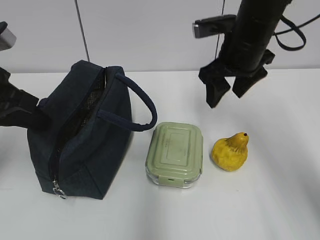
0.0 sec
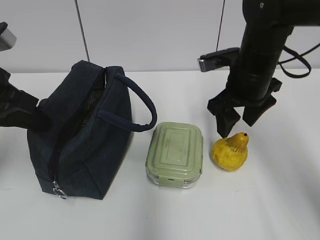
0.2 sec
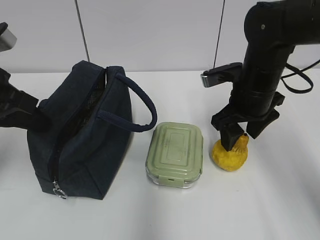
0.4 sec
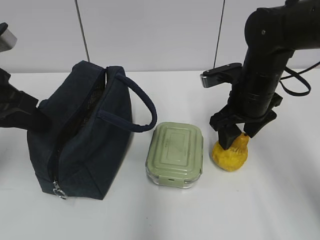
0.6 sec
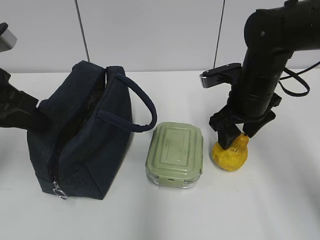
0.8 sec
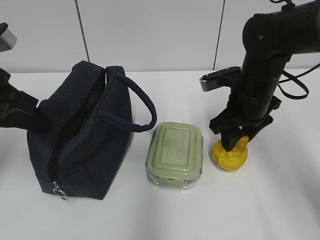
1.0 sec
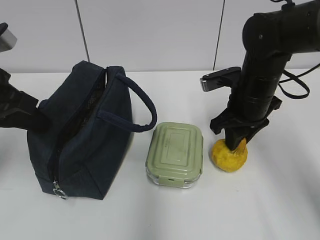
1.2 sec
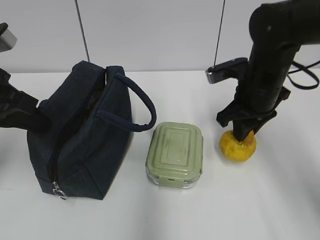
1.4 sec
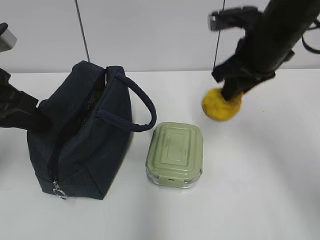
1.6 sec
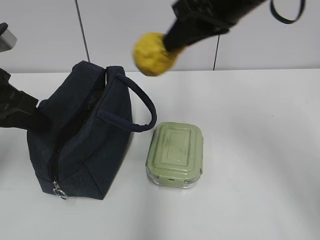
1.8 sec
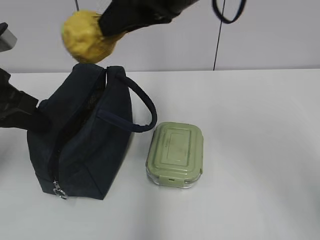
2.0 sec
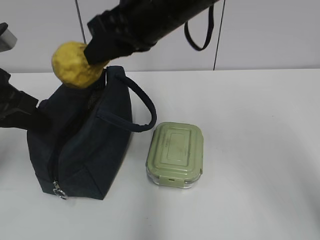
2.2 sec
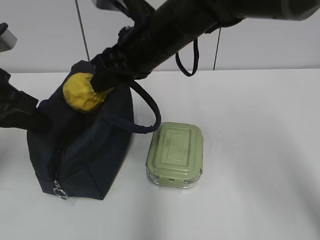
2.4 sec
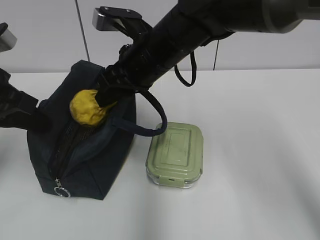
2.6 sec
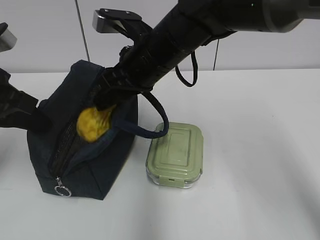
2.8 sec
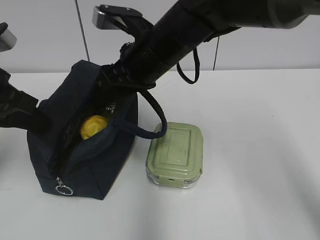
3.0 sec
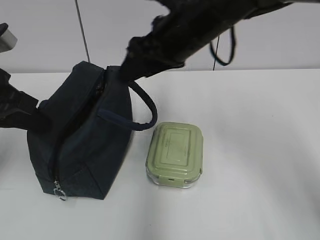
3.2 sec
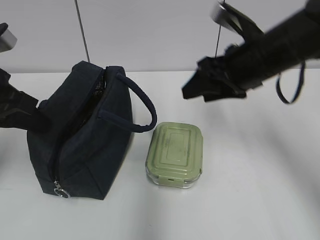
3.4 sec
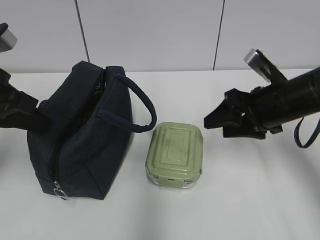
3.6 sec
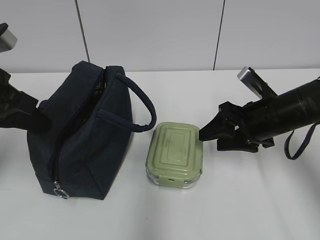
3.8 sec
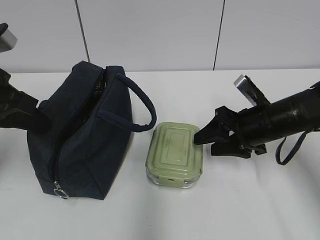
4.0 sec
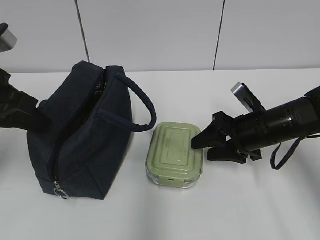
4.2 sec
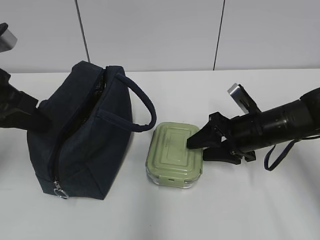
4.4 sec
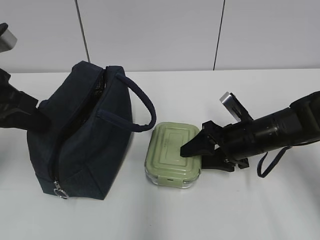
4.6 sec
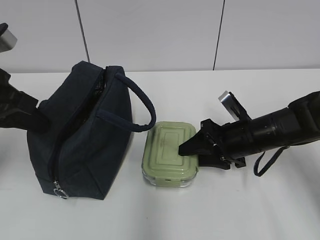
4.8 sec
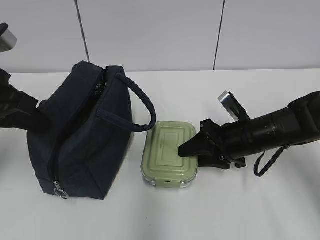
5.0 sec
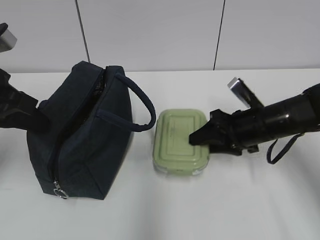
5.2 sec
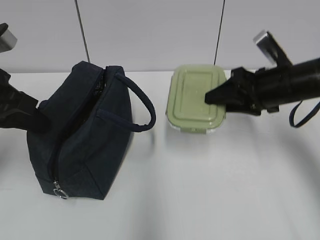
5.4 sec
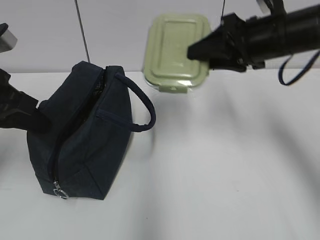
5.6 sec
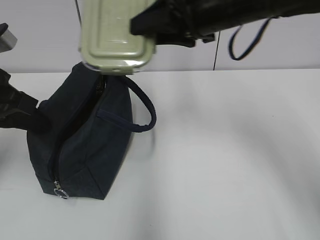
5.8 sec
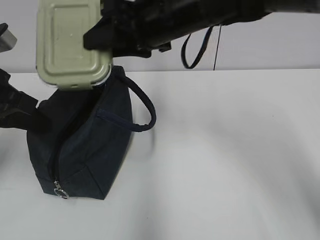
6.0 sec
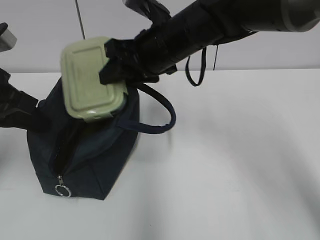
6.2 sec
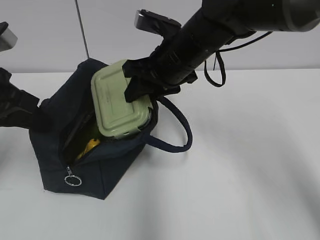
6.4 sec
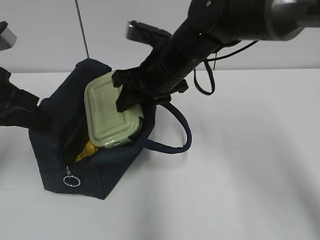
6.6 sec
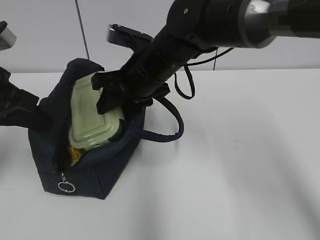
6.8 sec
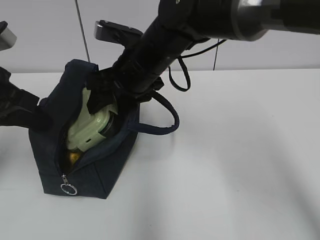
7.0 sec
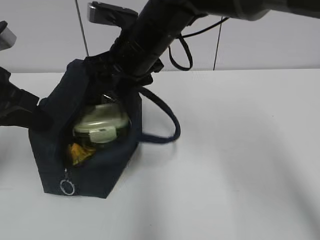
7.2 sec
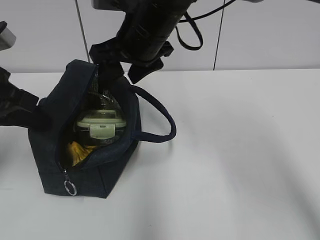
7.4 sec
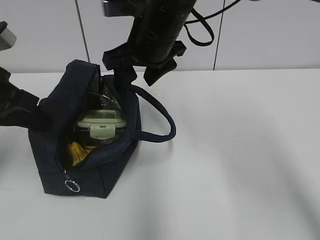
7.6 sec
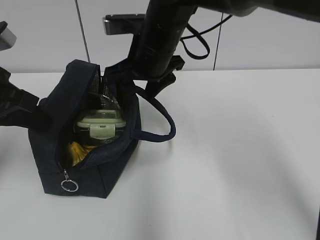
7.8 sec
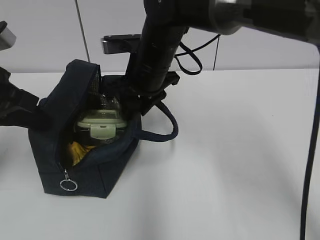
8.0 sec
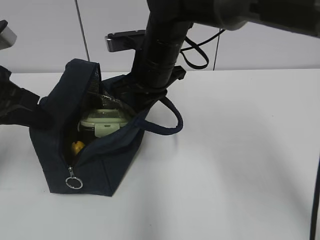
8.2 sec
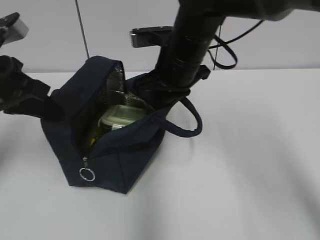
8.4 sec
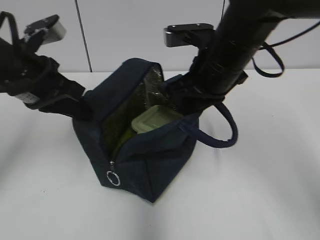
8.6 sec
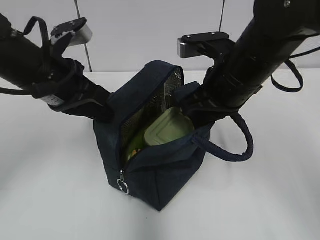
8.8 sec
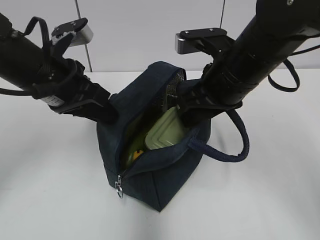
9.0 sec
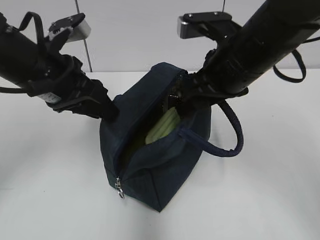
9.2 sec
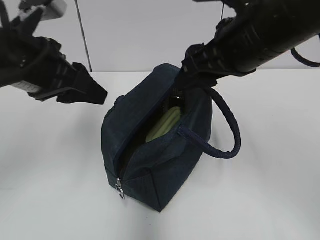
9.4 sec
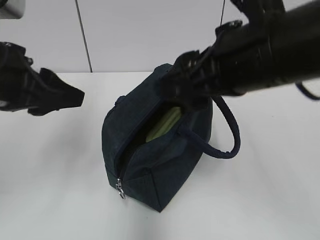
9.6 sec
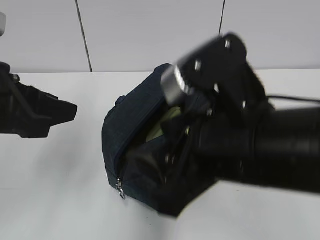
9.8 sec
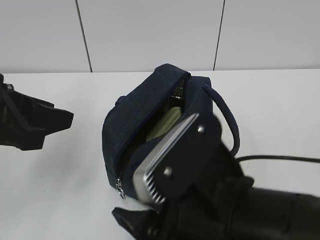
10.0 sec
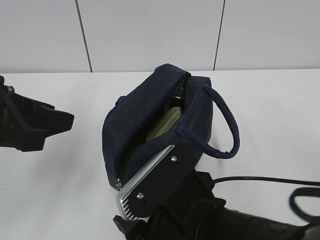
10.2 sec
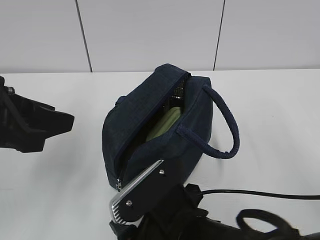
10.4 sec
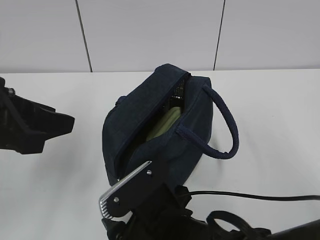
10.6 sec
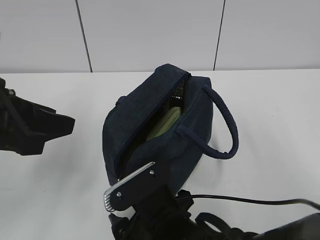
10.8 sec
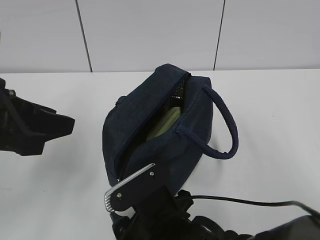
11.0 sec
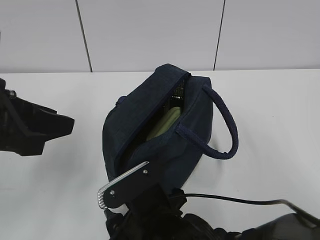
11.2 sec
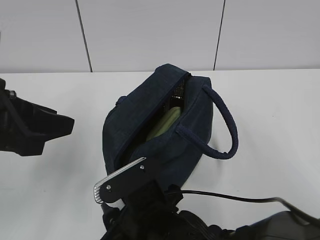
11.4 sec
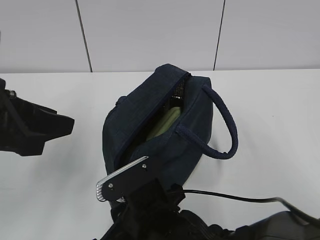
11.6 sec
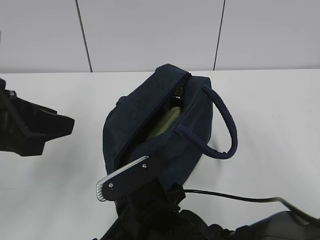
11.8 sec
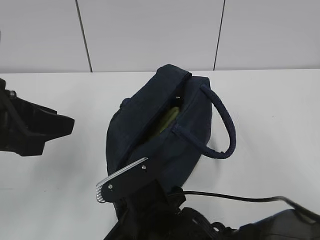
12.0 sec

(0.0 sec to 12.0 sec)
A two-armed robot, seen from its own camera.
Step, 0.0 sec - 1.2 sec: Grab the pear with your right hand.
Step, 1.4 sec - 3.0 sec: Place it into the bag with your right hand.
Step, 3.2 sec - 4.8 sec: Grab the lunch box with your right hand.
Step, 7.4 sec - 8.0 sec: Grab the lunch bag with your right hand.
Step, 8.2 sec - 9.0 sec: Move the lunch bag to the right.
0.0 sec - 1.6 sec: The right gripper goes some 5 cm upward, and closes up.
1.6 sec - 3.0 sec: The right gripper goes some 15 cm to the left, and opens up.
3.0 sec - 4.4 sec: The right gripper is displaced downward and to the right by roughly 25 cm.
4.4 sec - 6.0 sec: The right gripper moves upward and to the left, about 25 cm.
7.6 sec - 9.0 sec: The left gripper moves to the right, about 10 cm, and opens its fingers; the right gripper moves to the right and backward, roughly 10 cm, and closes, then reopens.
9.0 sec - 10.4 sec: The right gripper heads backward, downward and to the left, covering roughly 20 cm; the left gripper moves backward, about 10 cm.
10.4 sec - 12.0 sec: The right gripper closes up.

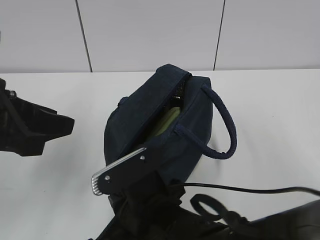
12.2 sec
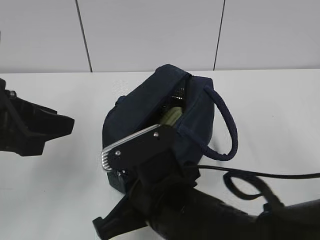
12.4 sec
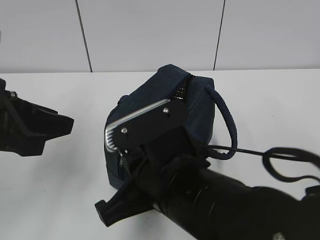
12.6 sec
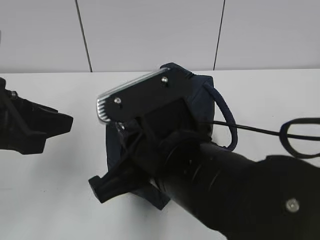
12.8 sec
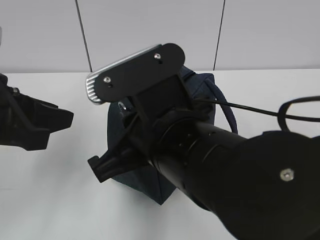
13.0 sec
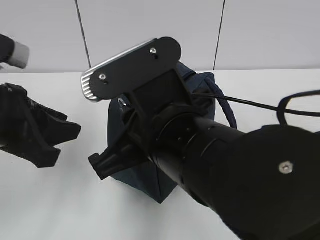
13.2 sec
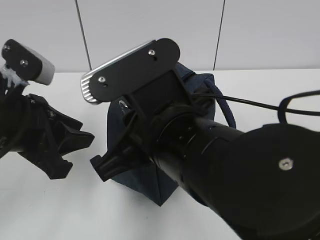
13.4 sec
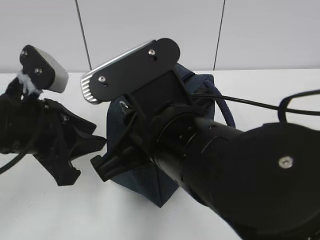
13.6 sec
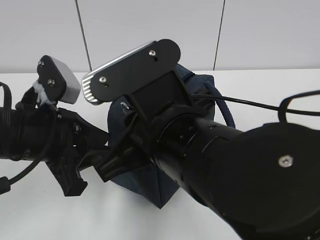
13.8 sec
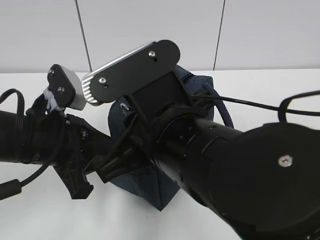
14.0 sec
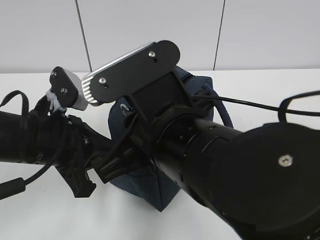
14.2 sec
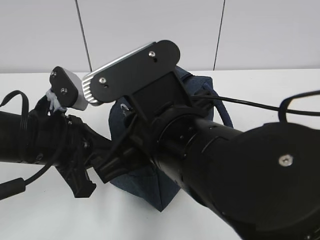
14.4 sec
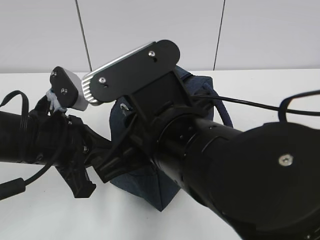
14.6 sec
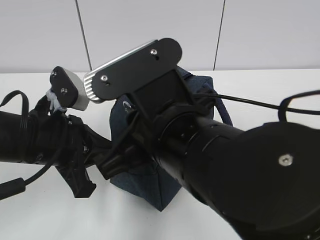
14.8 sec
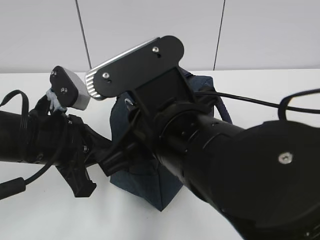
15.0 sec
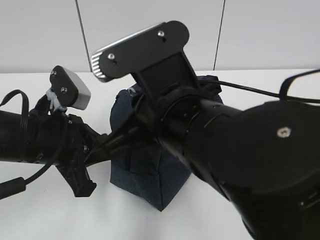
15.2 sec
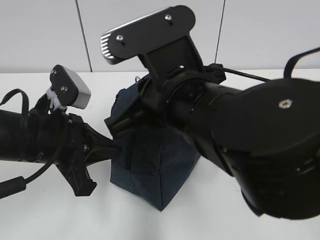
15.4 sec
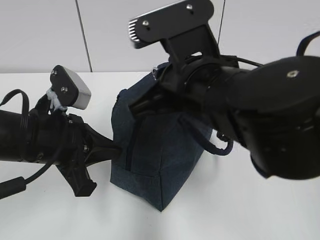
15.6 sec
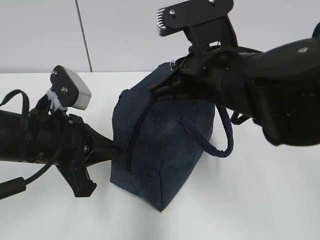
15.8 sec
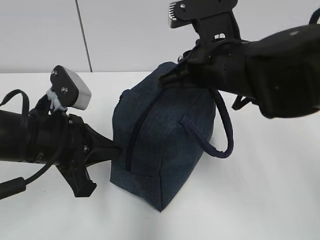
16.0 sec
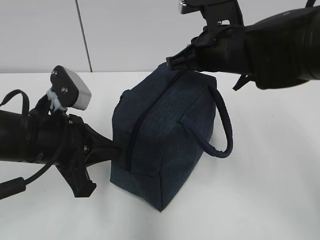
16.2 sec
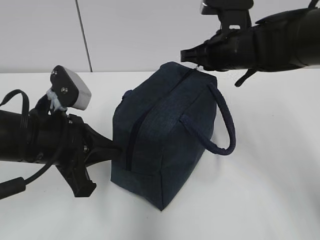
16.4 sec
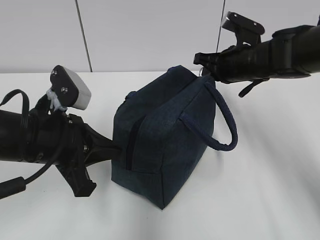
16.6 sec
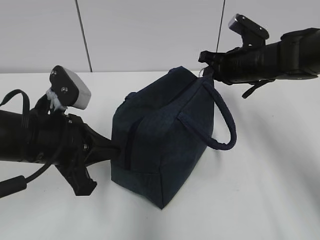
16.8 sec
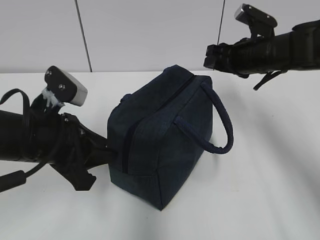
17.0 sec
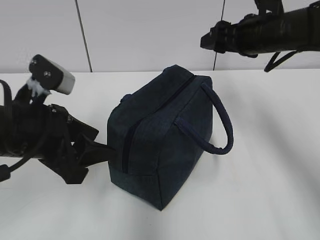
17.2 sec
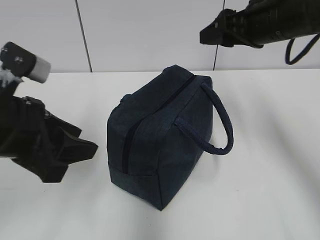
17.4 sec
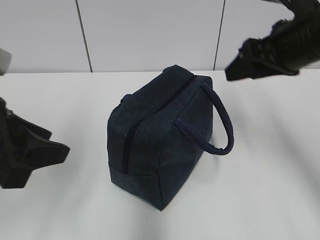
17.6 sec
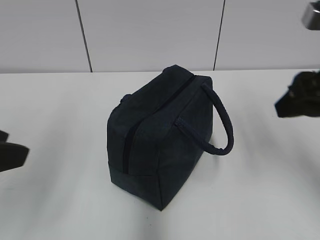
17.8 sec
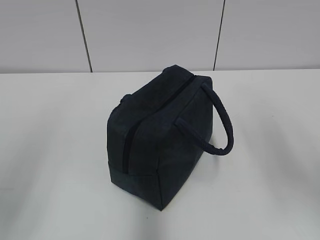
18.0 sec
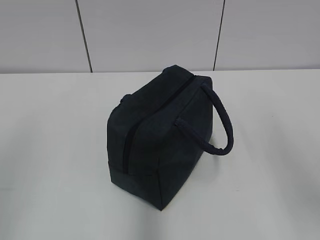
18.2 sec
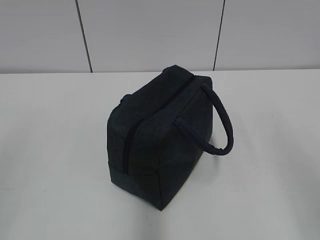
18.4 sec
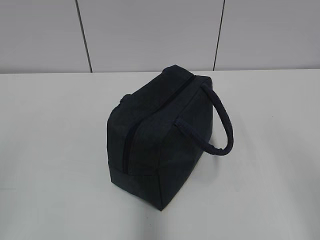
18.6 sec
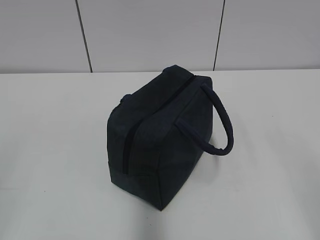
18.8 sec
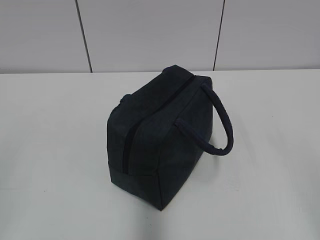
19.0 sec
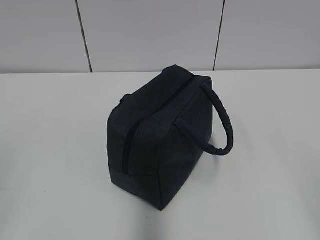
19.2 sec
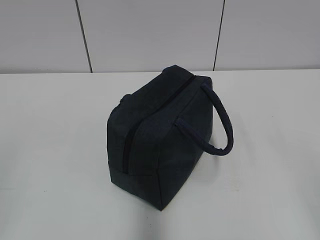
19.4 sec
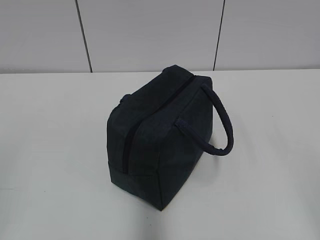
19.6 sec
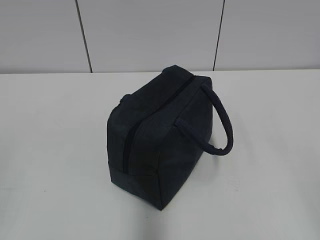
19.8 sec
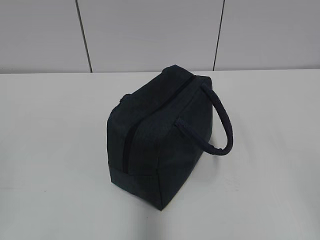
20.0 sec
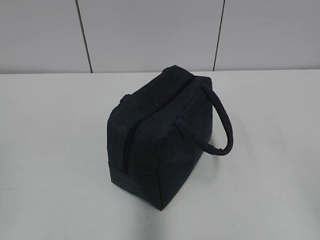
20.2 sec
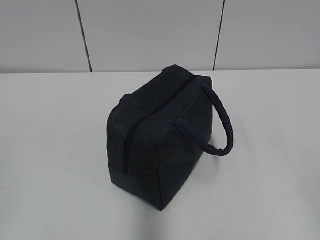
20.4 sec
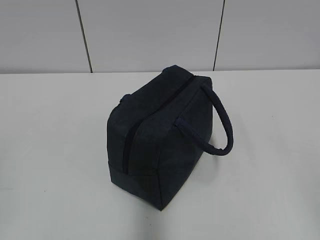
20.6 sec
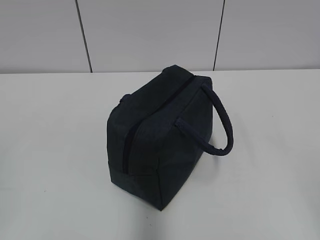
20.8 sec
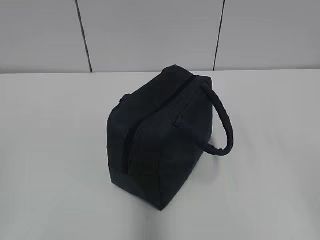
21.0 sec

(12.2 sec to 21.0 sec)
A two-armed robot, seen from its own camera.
Step, 12.2 sec - 16.6 sec: Pull the zipper with your right hand.
12.2 sec - 13.6 sec: The left gripper shifts by about 5 cm; the right gripper moves upward, approximately 10 cm.
13.6 sec - 15.2 sec: The left gripper closes.
15.2 sec - 16.6 sec: The right gripper shifts approximately 25 cm forward and to the right.
16.6 sec - 18.0 sec: The left gripper travels backward, upward and to the left by roughly 25 cm, and opens. The right gripper heads backward, covering about 30 cm, and opens up.

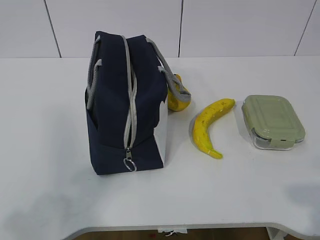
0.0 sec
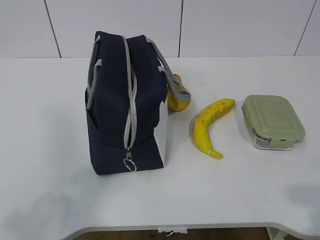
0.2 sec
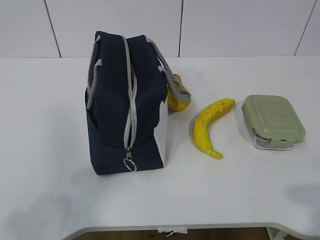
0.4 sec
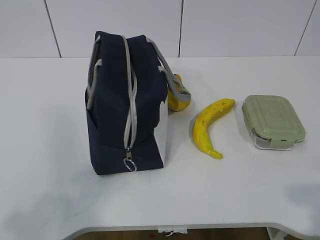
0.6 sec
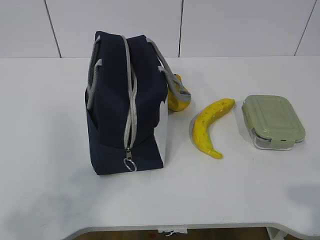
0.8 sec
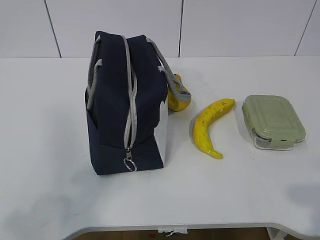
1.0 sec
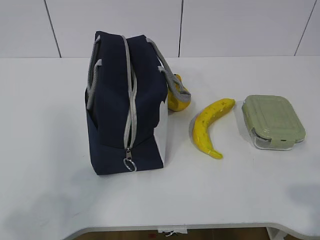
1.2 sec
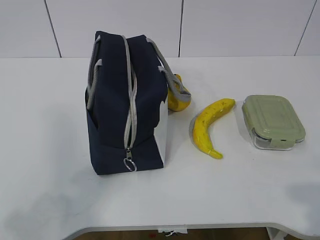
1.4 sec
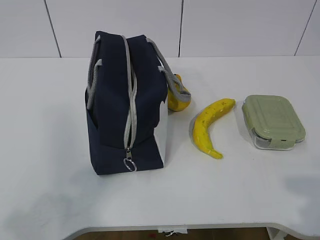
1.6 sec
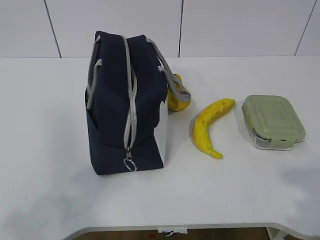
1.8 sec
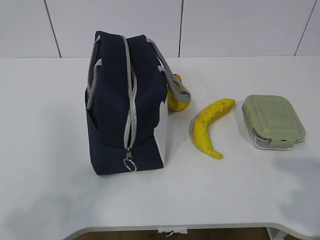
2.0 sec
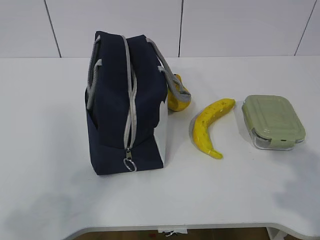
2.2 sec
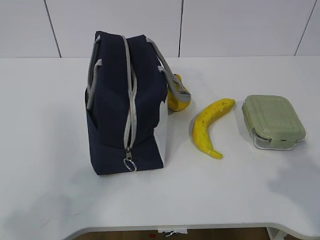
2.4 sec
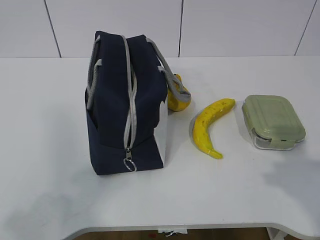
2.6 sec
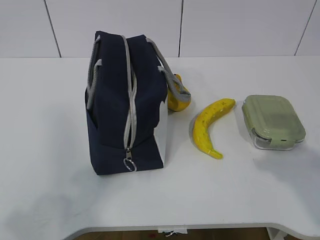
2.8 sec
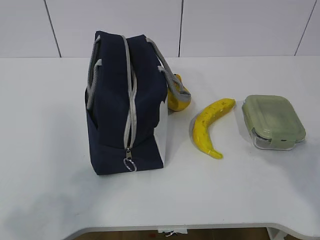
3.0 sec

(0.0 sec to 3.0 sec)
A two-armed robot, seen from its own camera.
1.6 sec - 3.0 sec: The right gripper shifts approximately 15 cm forward.
